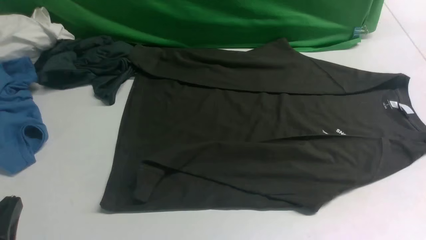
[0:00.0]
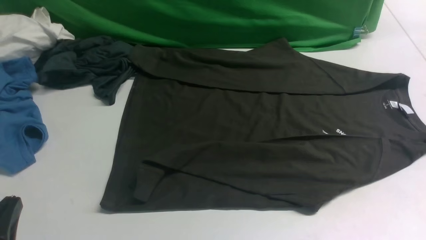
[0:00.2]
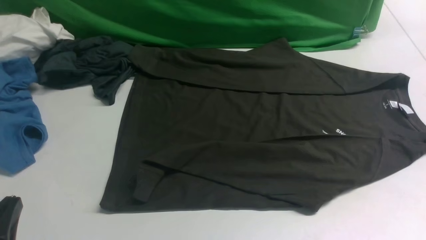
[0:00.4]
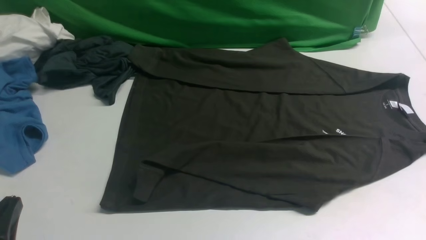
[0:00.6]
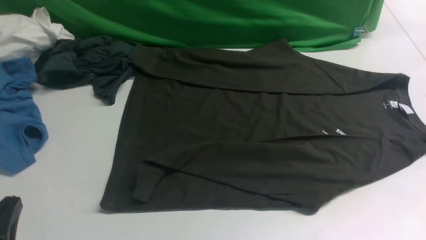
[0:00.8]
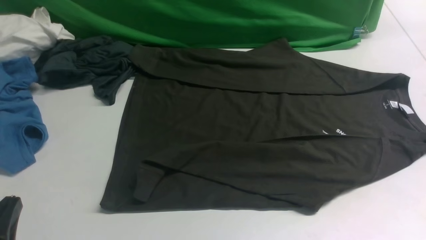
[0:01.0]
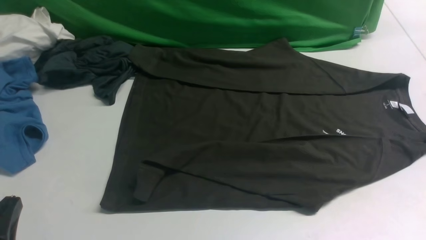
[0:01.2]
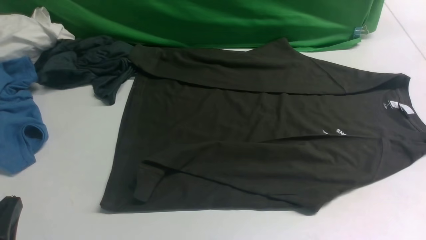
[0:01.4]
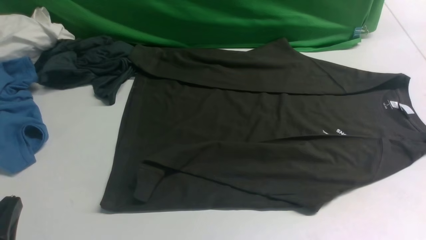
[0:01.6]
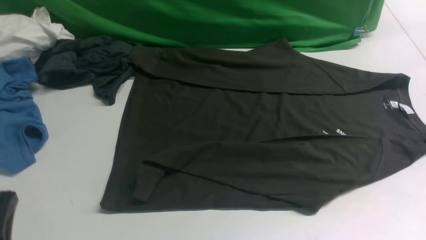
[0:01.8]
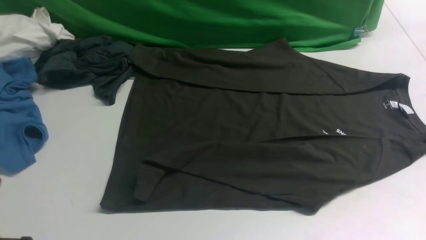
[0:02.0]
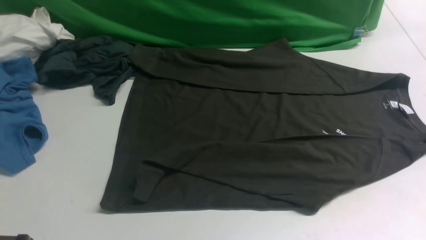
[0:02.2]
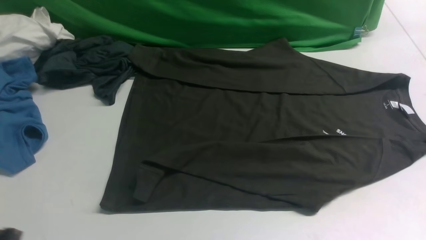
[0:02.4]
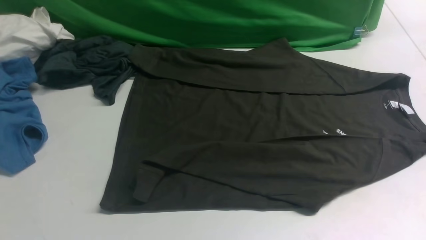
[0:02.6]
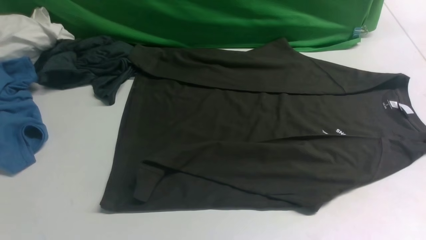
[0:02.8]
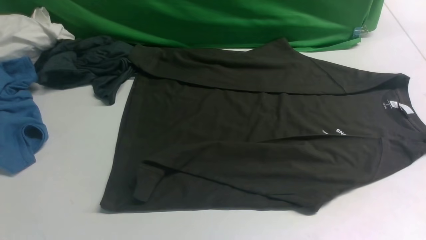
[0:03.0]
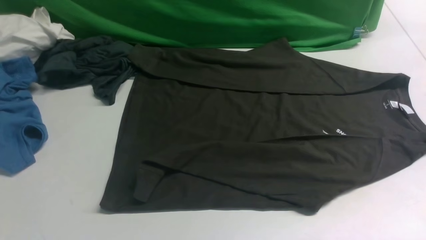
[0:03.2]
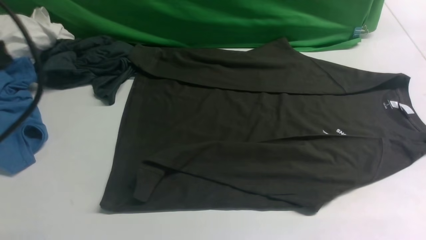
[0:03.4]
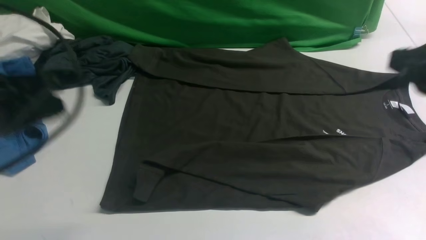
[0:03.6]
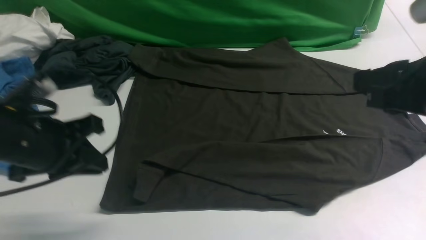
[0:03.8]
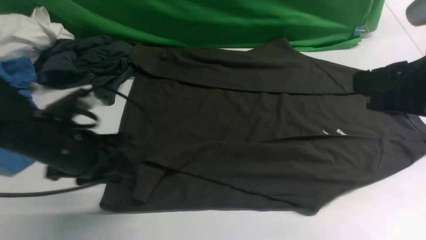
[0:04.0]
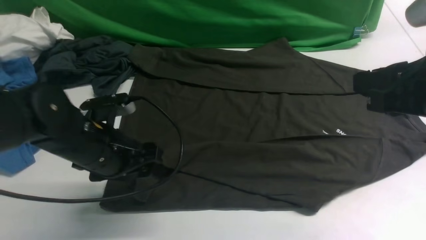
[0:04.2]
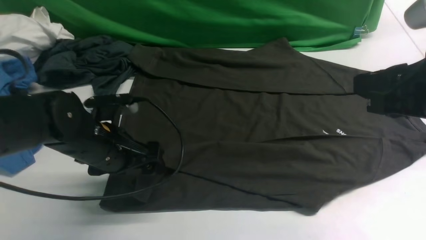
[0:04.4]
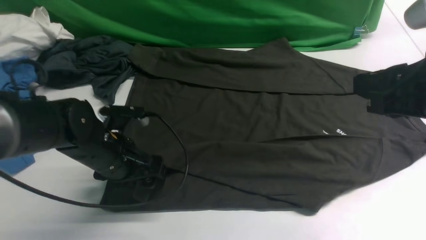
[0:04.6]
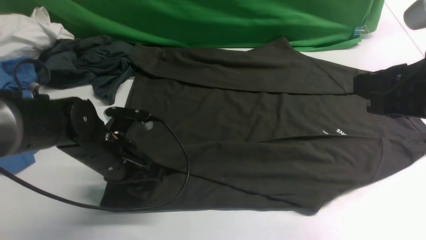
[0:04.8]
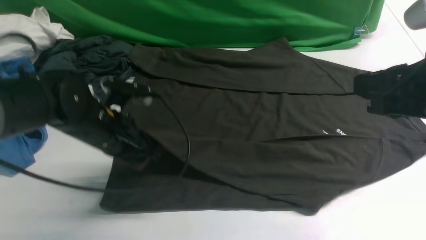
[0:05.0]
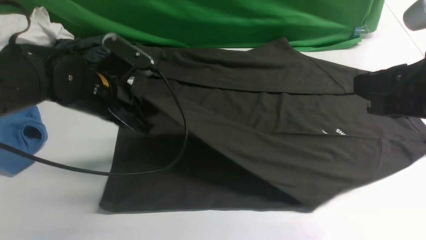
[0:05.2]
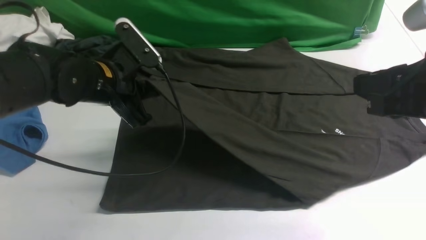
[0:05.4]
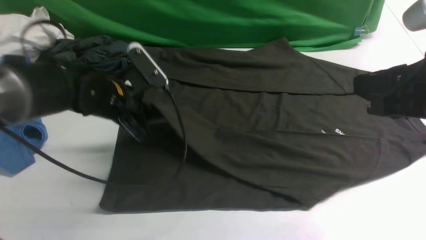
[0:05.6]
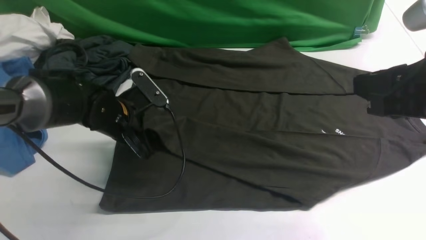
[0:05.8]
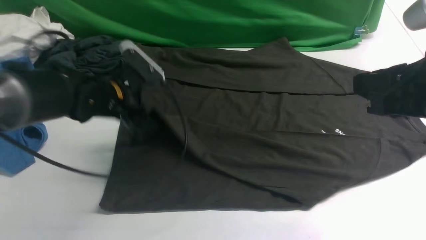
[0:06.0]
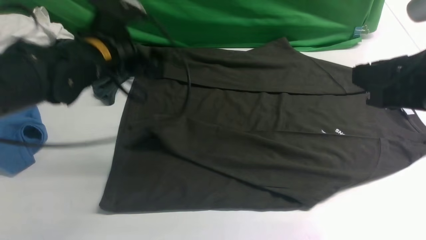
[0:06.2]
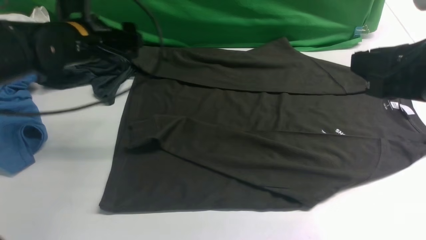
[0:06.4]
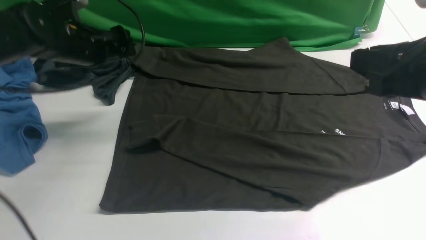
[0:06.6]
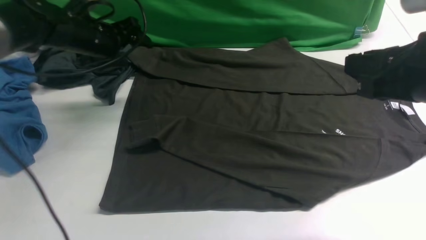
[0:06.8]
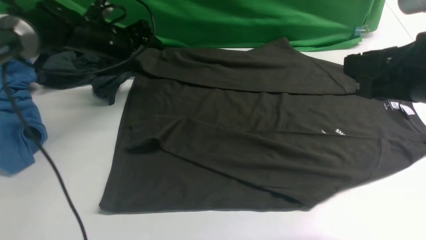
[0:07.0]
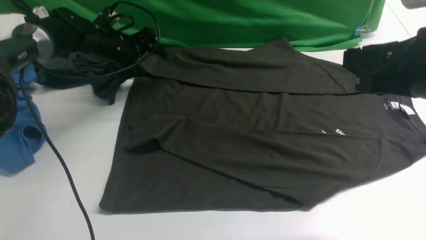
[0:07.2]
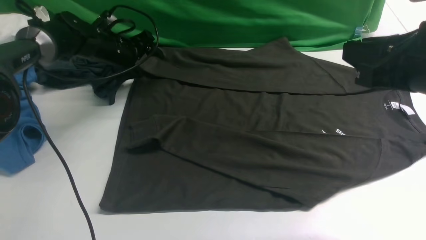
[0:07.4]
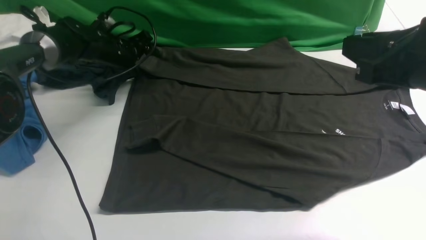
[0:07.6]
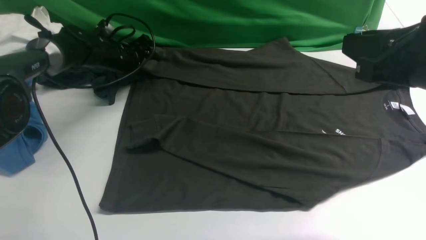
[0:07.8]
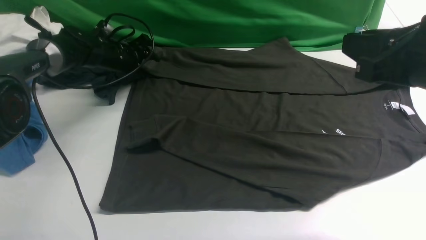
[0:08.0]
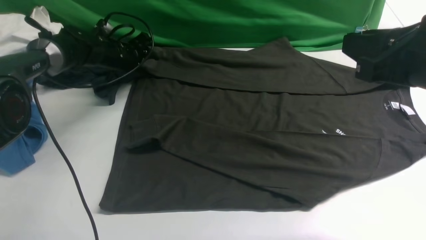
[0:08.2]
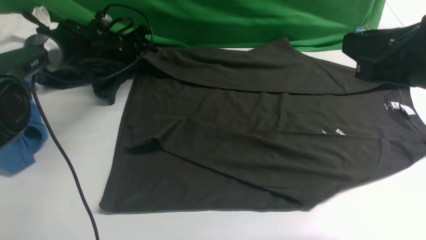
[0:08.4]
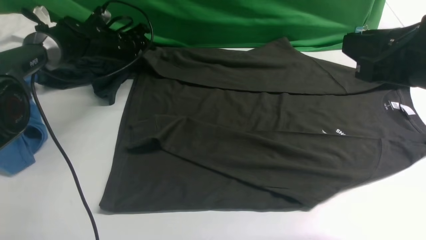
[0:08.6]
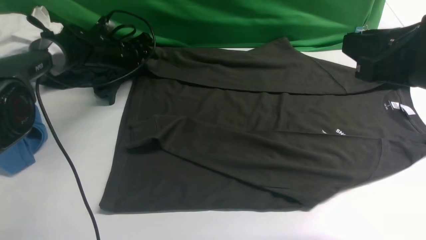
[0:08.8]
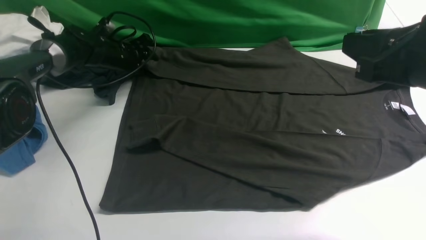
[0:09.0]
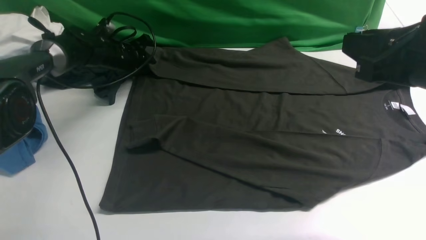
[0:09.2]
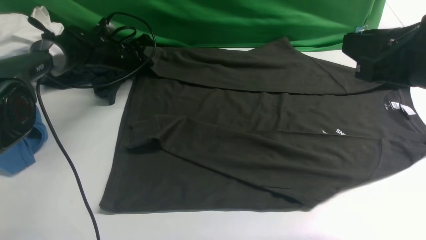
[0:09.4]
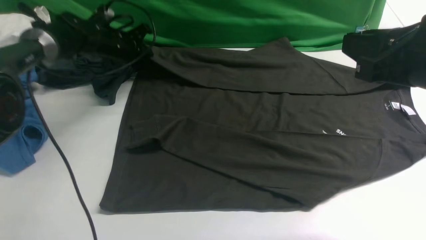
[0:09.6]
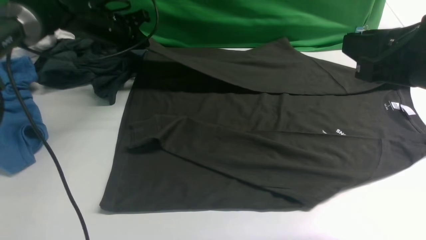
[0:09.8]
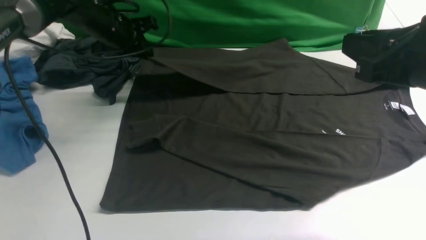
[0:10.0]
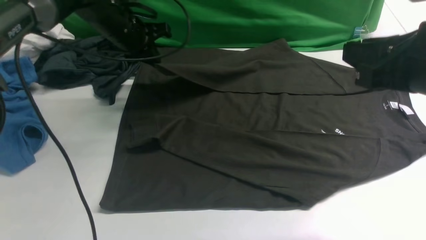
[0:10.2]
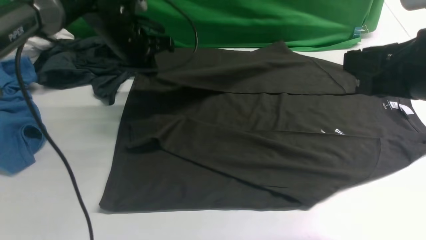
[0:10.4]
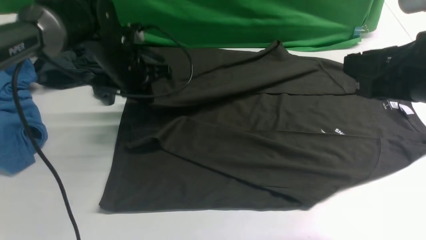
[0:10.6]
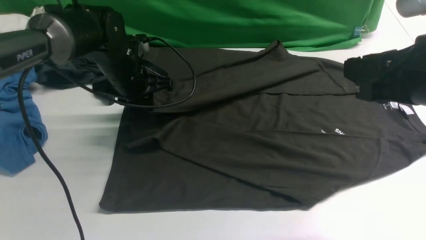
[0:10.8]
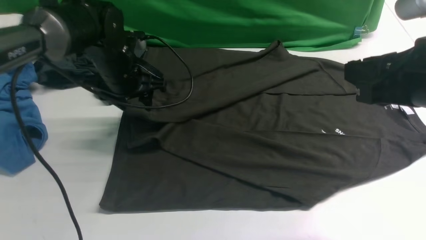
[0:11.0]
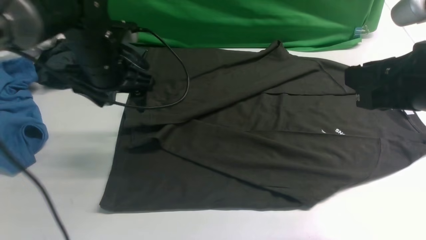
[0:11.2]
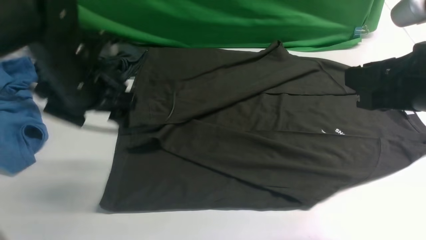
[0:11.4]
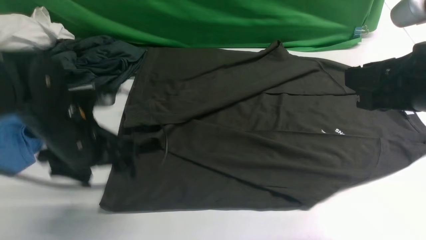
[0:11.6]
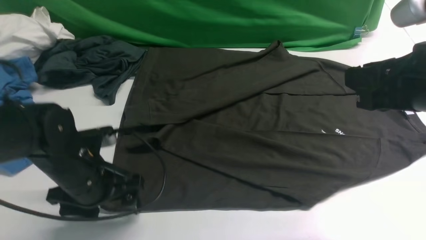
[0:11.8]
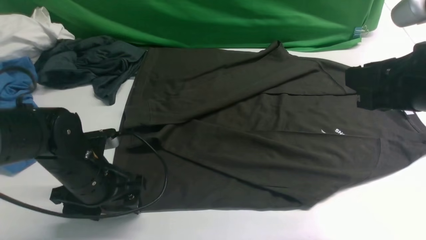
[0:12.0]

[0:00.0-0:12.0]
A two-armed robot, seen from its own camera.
Step, 0:00.0 to 0:04.8: use the left arm to clamp the cuff closest to it.
Step, 0:05.0 to 0:06.2: use the left arm to drag and place the cuff at the centered position on the left edge of the fabric.
Step, 0:06.4 to 0:09.4: use the left arm to clamp the cuff farthest from it.
Step, 0:09.6 to 0:11.2: use the left arm to drag and drop the cuff onto the cuff closest to the left arm.
0:01.6 to 0:03.0: The left gripper is displaced upward by roughly 20 cm.
0:03.0 to 0:04.4: The left gripper shifts some 30 cm downward and forward, and opens its fingers, while the right gripper is displaced to the left, downward and forward by roughly 15 cm.
0:04.4 to 0:06.0: The left gripper heads forward, covering some 10 cm, and closes and opens again.
0:06.0 to 0:07.6: The left gripper shifts approximately 15 cm forward.
0:07.6 to 0:09.0: The left gripper closes.
0:09.0 to 0:10.4: The left gripper heads upward, backward and to the right, covering some 15 cm, and closes up.
0:10.4 to 0:12.0: The left gripper travels backward and downward by roughly 20 cm, and opens.

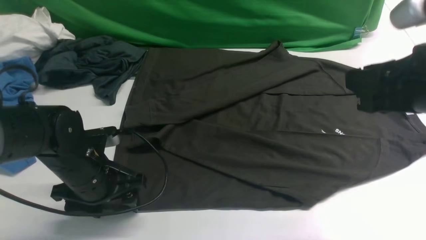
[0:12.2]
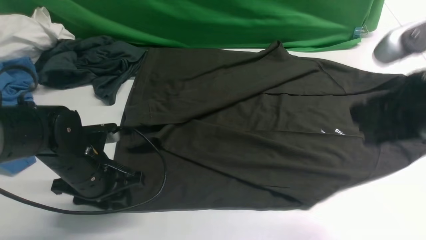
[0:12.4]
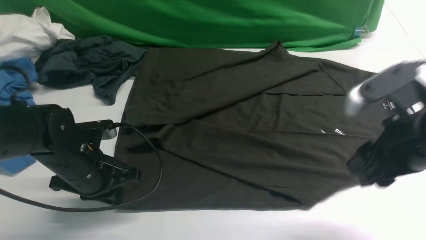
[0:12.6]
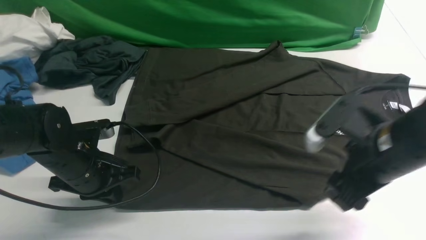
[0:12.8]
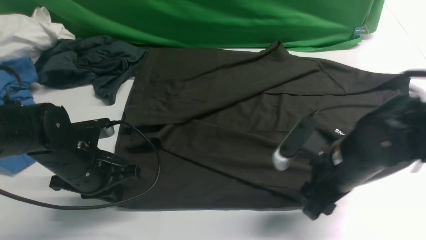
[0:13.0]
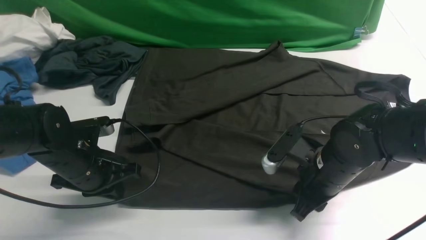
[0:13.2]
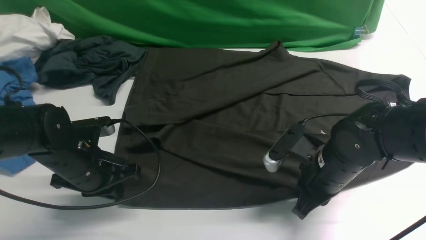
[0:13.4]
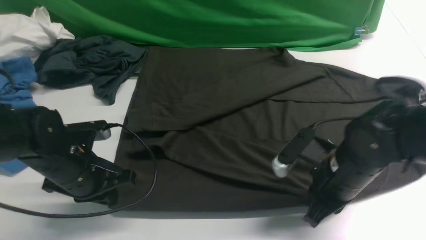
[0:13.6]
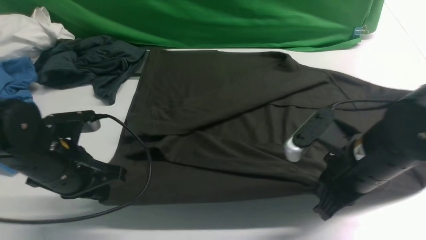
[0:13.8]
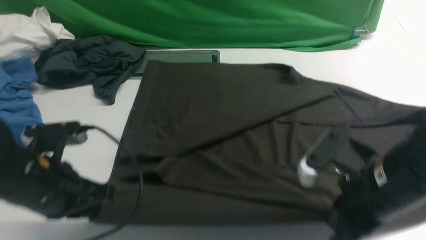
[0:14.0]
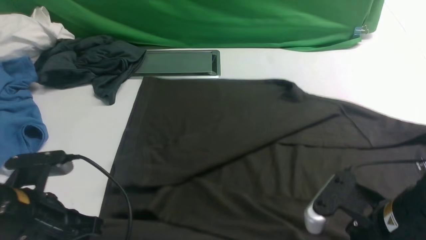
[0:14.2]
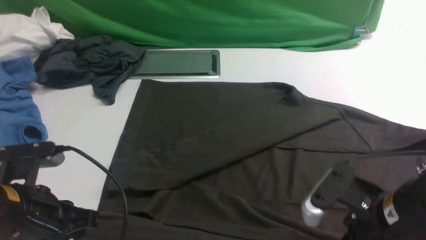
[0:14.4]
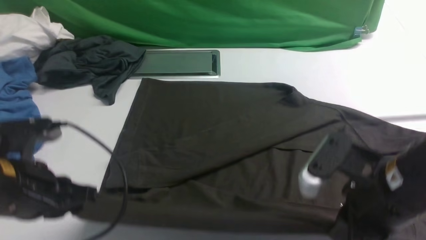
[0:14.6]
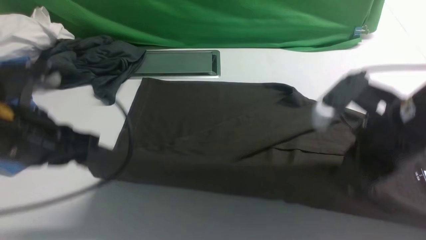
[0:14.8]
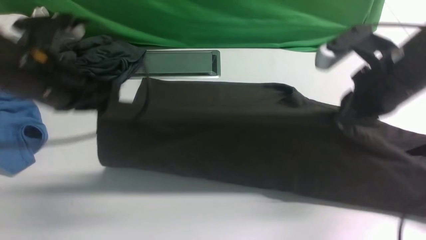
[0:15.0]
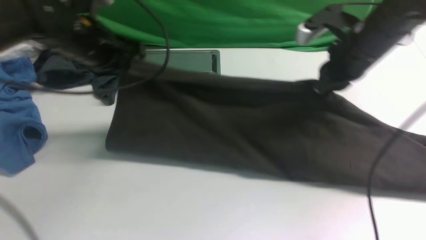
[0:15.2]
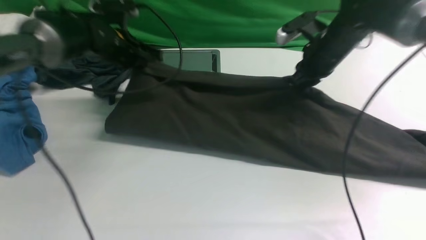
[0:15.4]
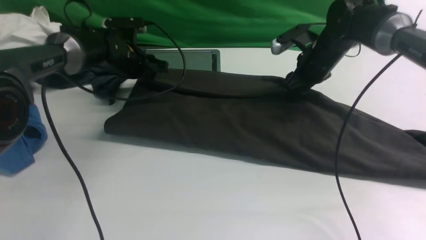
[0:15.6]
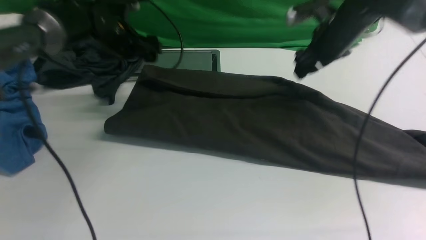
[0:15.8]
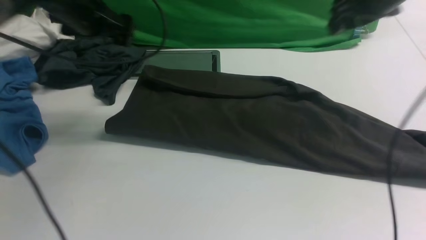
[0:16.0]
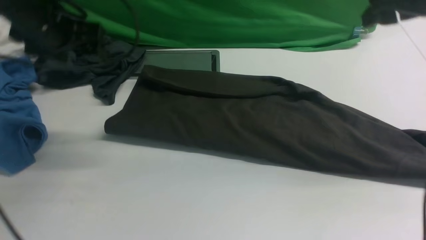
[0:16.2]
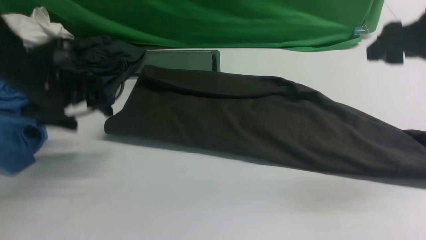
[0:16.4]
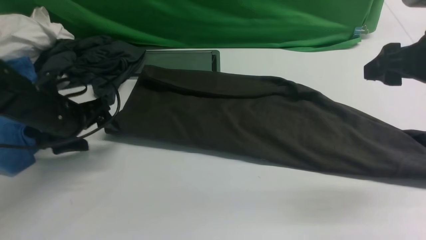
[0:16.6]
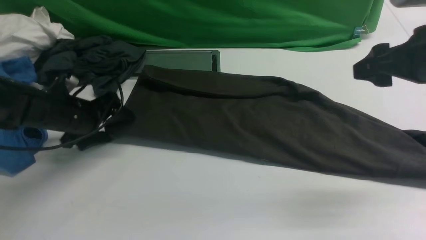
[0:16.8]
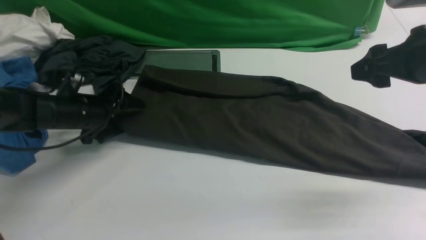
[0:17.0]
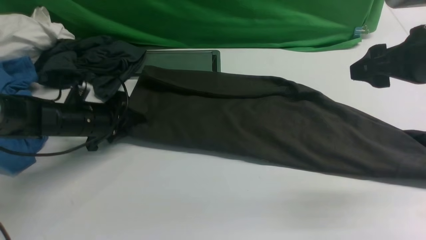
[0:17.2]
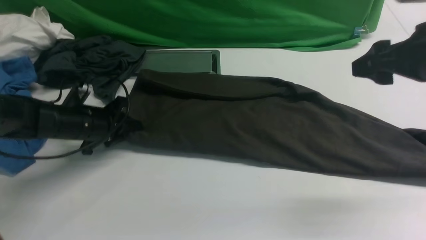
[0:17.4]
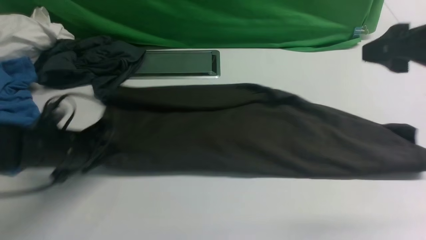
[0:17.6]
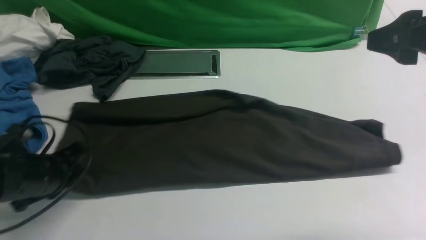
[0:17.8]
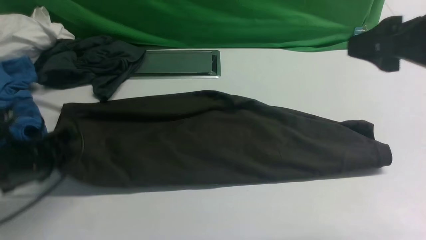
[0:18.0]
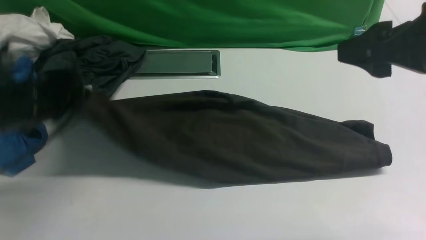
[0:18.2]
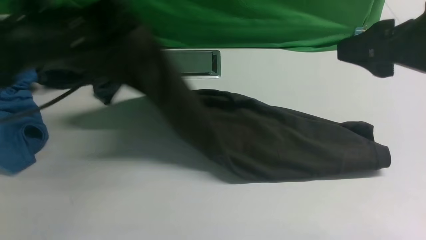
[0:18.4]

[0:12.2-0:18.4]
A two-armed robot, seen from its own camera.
Step, 0:12.2 to 0:13.8: use both arms simultaneously to clamp the lower edge of the clothing fabric.
Step, 0:14.0 to 0:15.6: use both arms to drag the lower edge of the fabric forward and fold it over the upper edge.
Step, 0:15.8 to 0:17.8: Hold the left edge of the fabric with your left arm.
0:12.2 to 0:13.8: The right gripper travels downward by approximately 10 cm, and closes its fingers. Meanwhile the left gripper is displaced upward by some 5 cm, and closes up.
0:13.8 to 0:15.4: Both grippers travel together forward, approximately 25 cm.
0:15.4 to 0:16.8: The right gripper moves backward and upward, roughly 20 cm, and opens its fingers. The left gripper shifts roughly 15 cm backward, downward and to the left, and opens its fingers.
0:16.8 to 0:18.4: The right gripper shifts some 10 cm backward and upward; the left gripper shifts some 20 cm upward and to the right, and closes its fingers.
